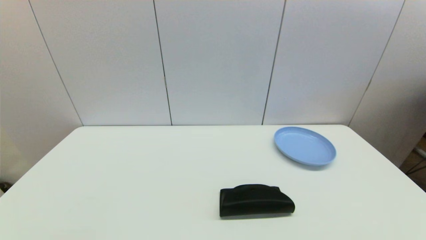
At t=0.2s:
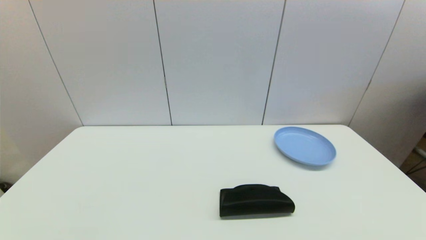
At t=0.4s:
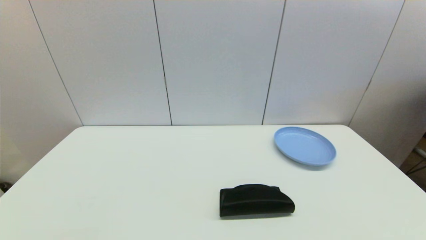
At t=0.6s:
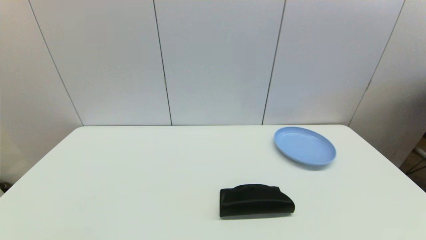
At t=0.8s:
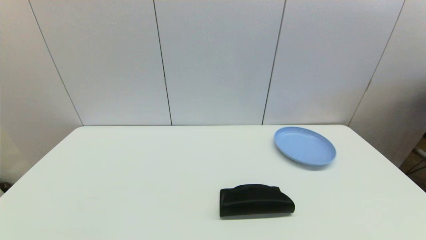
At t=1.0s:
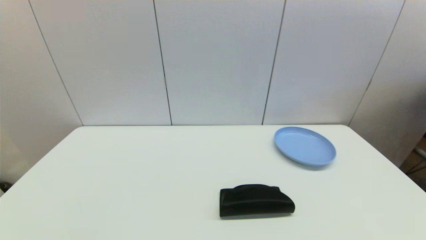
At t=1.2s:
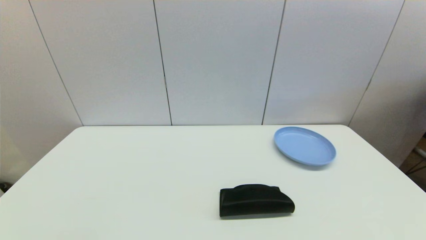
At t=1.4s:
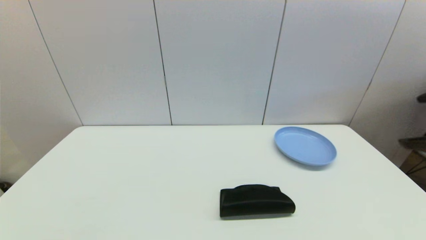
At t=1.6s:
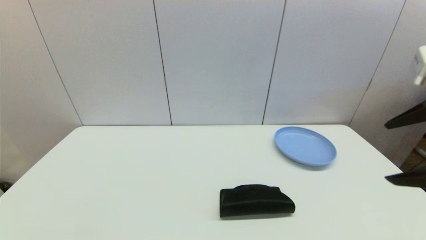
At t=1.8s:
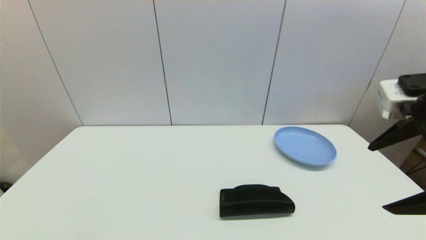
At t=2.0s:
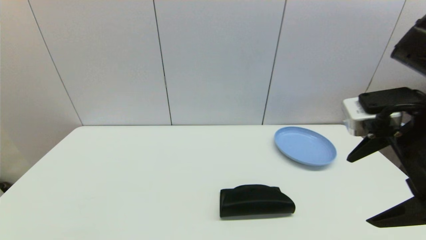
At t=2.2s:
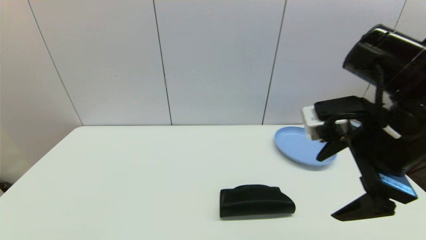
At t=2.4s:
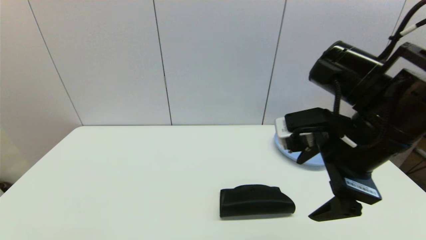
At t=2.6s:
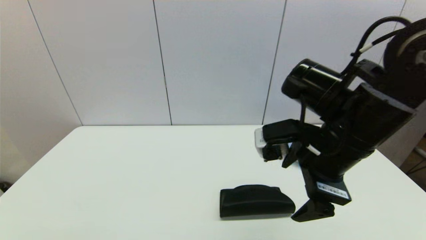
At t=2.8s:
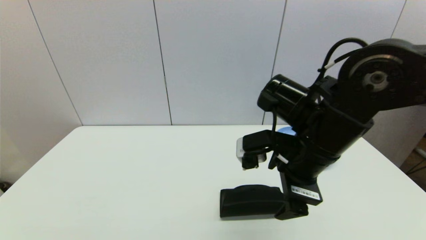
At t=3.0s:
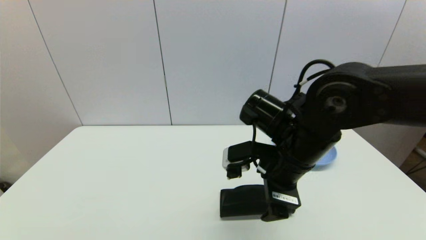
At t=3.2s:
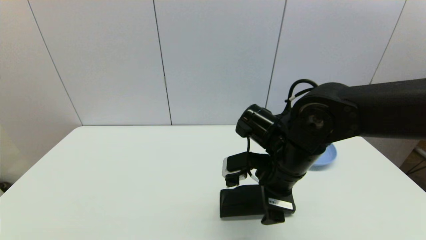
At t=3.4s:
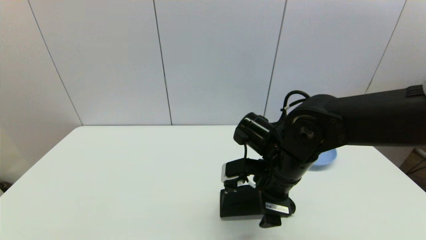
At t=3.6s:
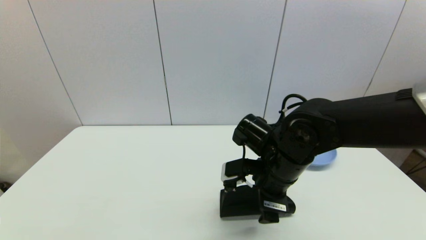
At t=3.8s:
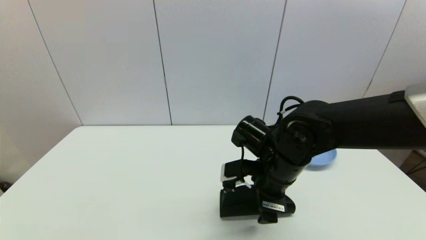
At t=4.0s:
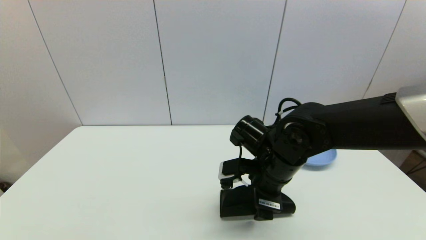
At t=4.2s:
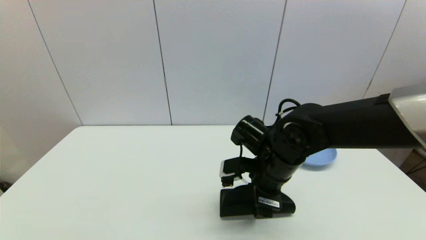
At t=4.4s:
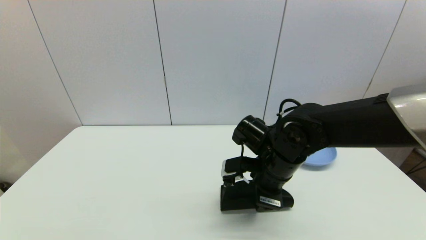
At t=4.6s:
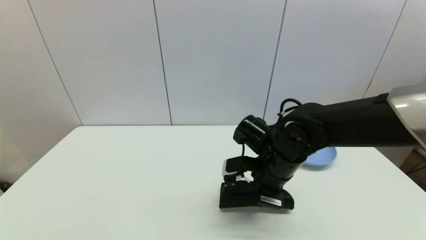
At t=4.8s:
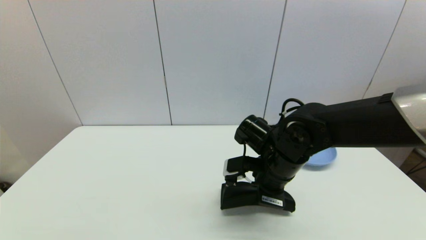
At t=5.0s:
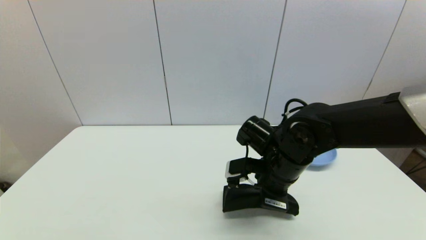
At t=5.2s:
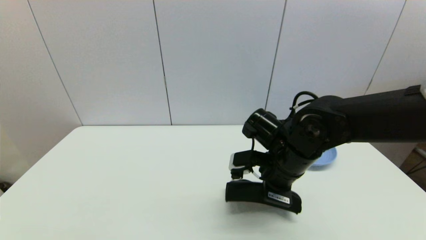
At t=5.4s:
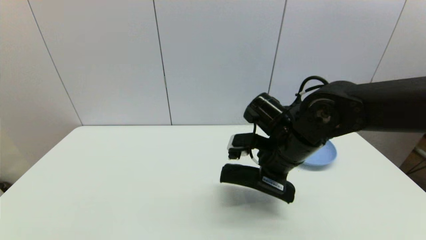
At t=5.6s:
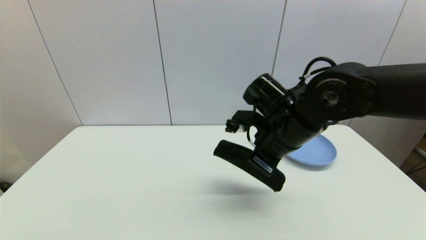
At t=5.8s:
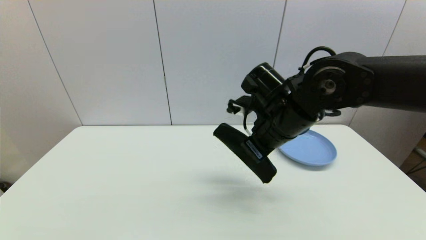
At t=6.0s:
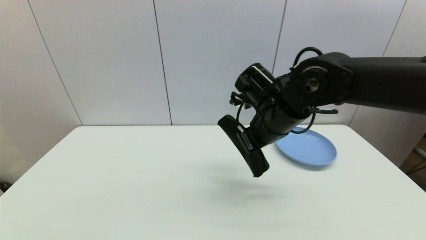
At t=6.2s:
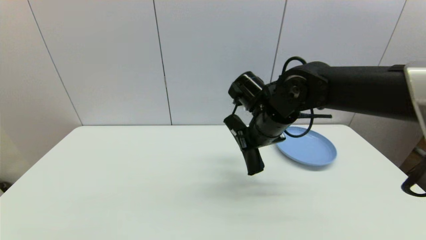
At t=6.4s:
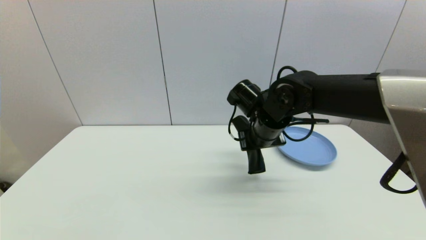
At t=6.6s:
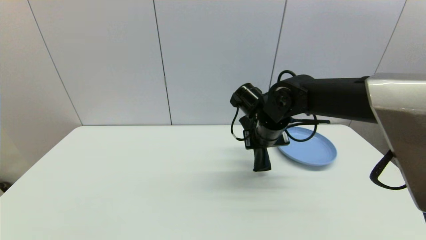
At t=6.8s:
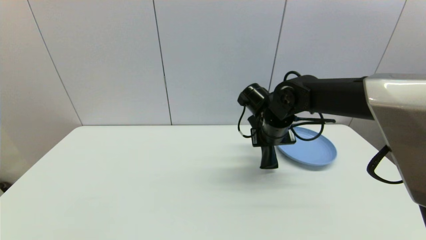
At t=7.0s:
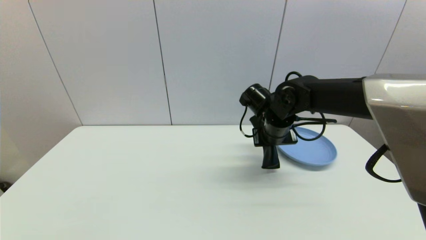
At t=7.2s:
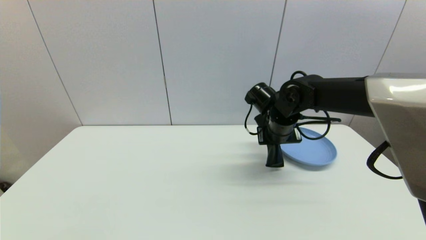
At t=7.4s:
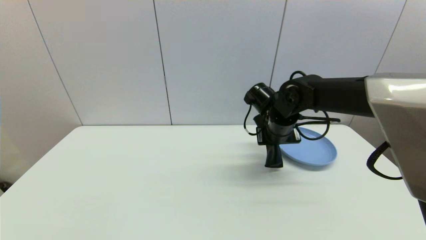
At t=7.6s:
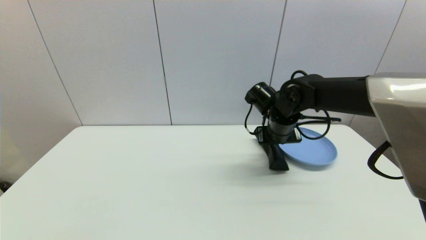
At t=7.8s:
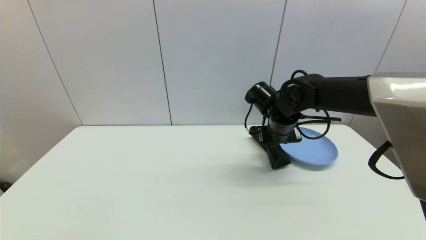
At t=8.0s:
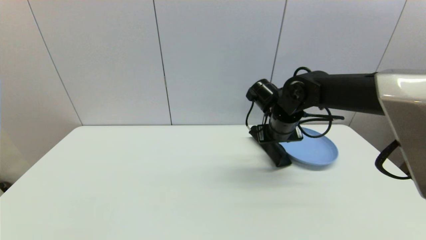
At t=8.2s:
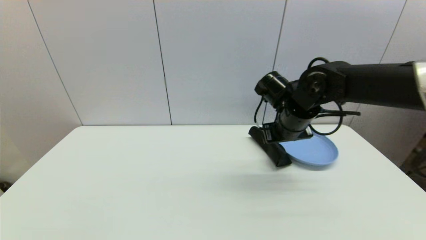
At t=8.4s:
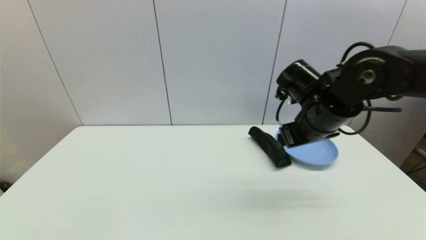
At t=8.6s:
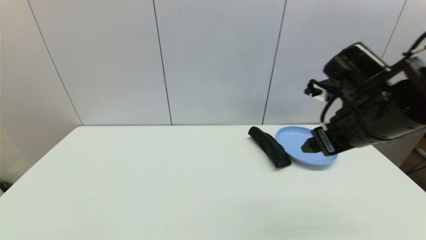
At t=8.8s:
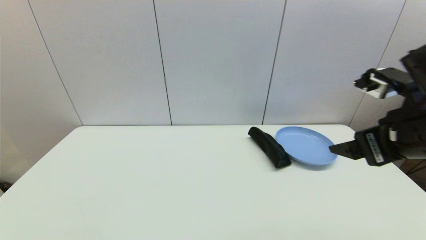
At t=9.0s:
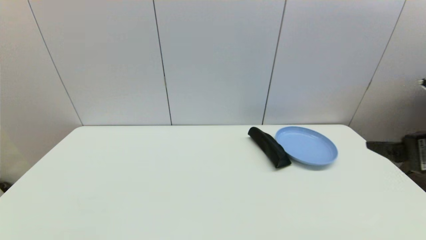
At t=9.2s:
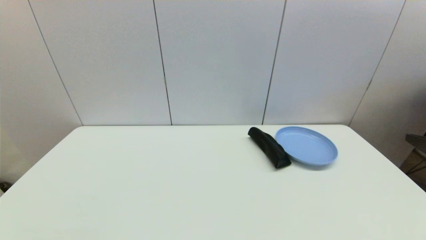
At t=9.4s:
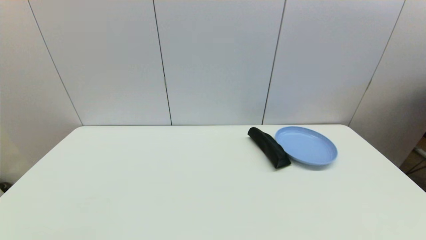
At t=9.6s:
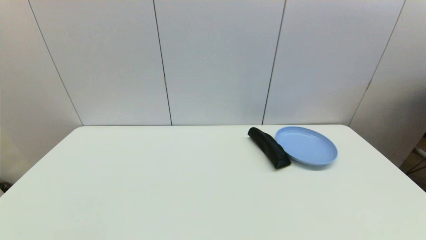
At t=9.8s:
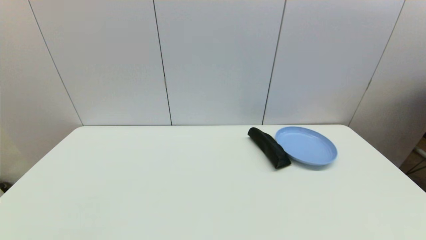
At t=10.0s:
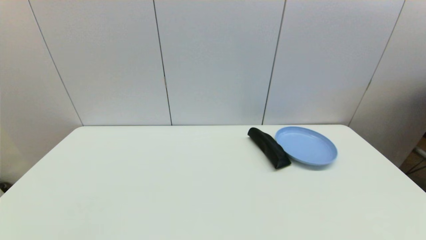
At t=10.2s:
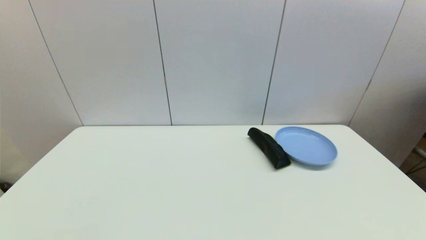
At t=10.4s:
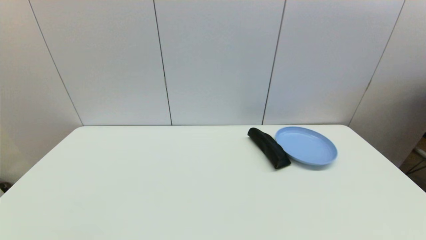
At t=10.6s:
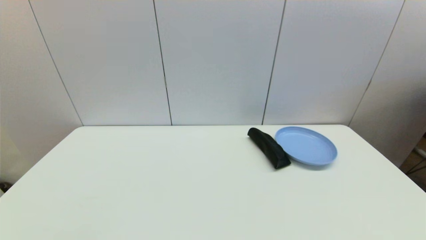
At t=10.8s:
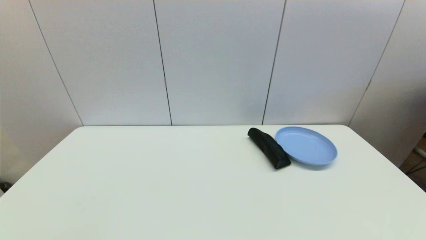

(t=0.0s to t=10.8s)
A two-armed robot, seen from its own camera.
Step, t=1.4s - t=4.6s: Grasp the glasses case with right gripper.
Step, t=4.8s - t=7.8s: Place the glasses case on the table with right gripper.
t=0.0s - t=1.6s: The right gripper travels upward and forward by roughly 30 cm.
t=1.6s - t=3.0s: The right gripper moves to the left, downward and forward, about 25 cm.
t=3.0s - t=4.6s: The right gripper goes roughly 5 cm downward, and closes.
t=4.6s - t=6.2s: The right gripper heads upward, covering about 5 cm, and closes its fingers.
t=6.2s - t=7.8s: The right gripper moves approximately 5 cm, and opens its fingers.
t=7.8s - t=9.2s: The right gripper goes about 30 cm backward and to the right, and opens.

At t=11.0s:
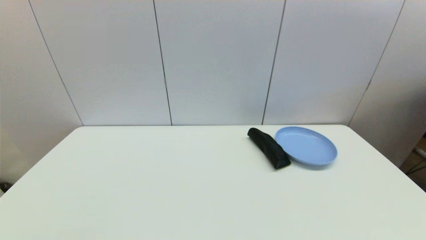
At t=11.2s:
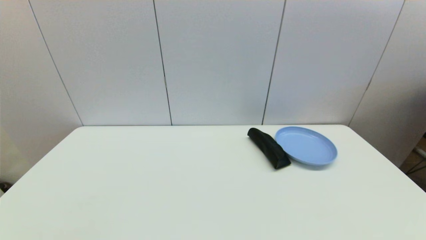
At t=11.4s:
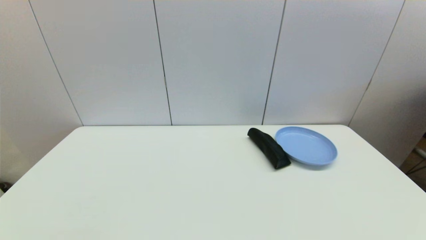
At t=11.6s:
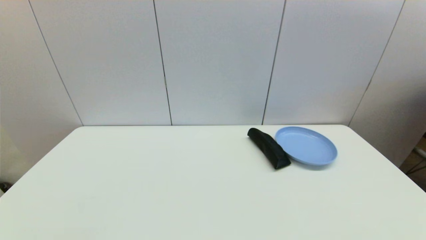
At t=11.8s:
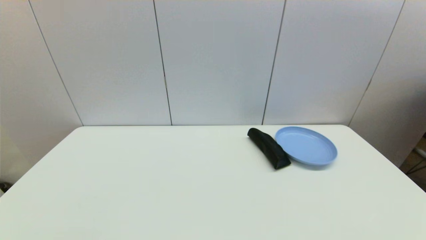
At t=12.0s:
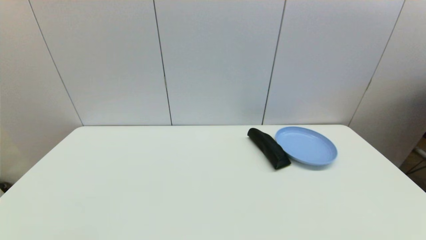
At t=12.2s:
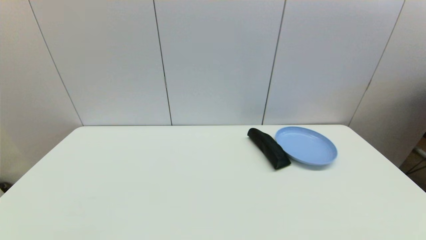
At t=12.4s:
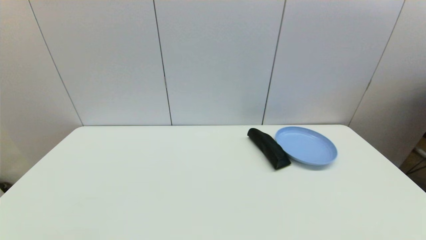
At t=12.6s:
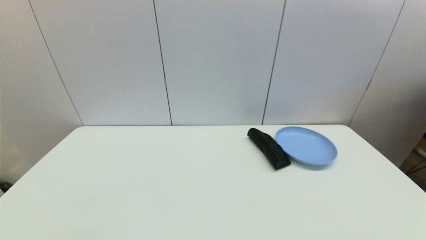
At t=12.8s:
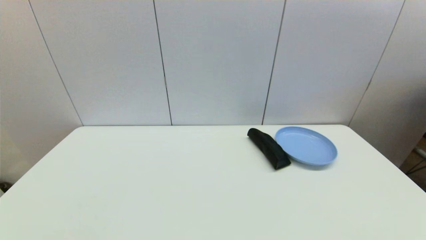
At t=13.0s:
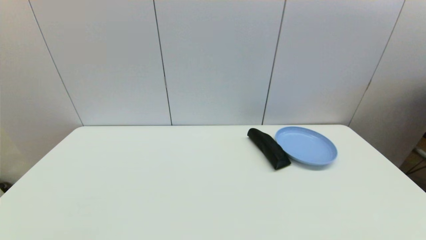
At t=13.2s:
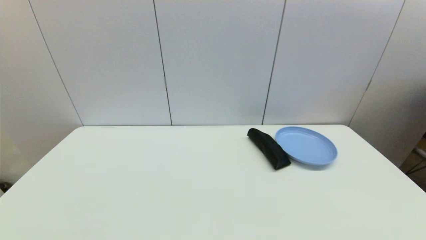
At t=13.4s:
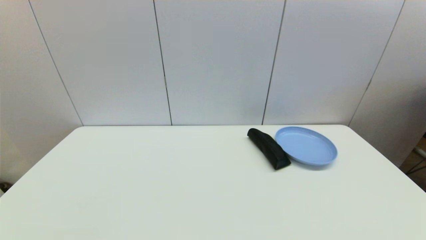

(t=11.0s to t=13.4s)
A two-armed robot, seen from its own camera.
t=12.2s - t=13.4s: Neither gripper changes place.
